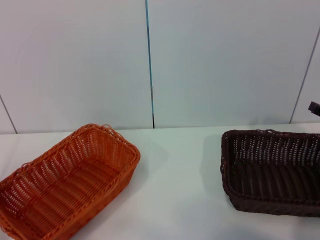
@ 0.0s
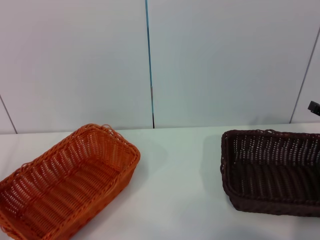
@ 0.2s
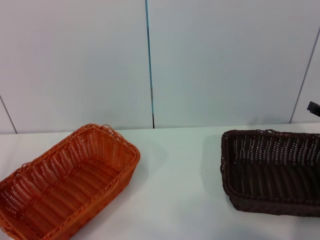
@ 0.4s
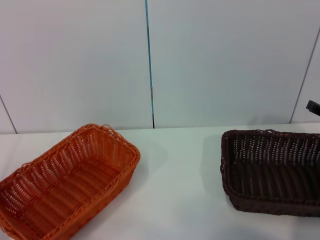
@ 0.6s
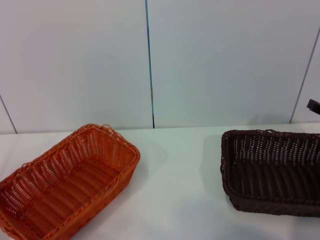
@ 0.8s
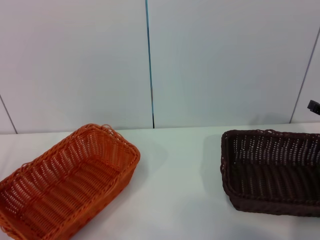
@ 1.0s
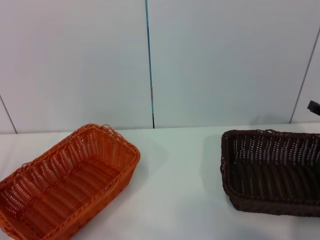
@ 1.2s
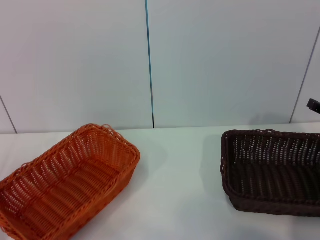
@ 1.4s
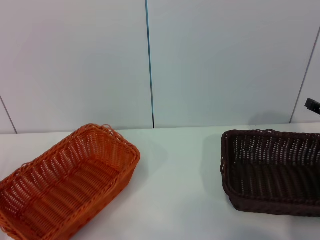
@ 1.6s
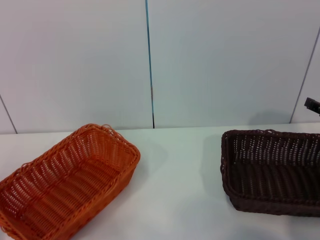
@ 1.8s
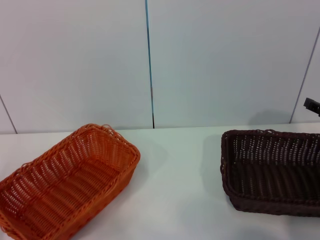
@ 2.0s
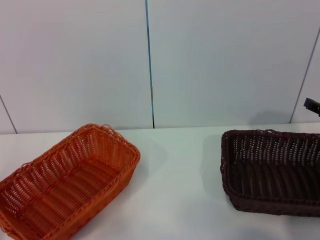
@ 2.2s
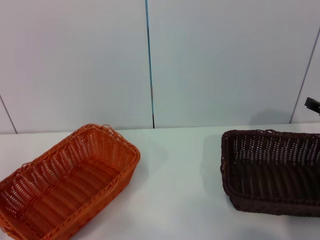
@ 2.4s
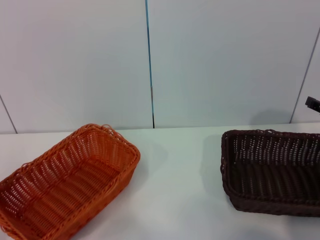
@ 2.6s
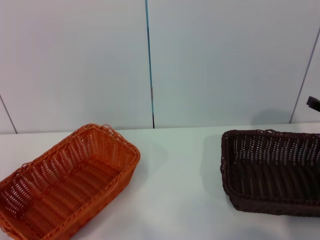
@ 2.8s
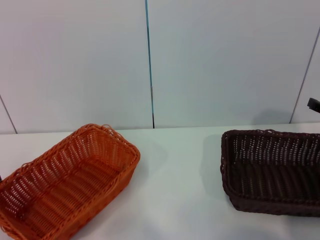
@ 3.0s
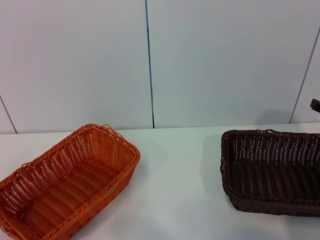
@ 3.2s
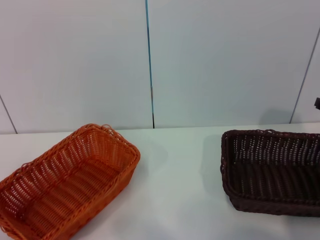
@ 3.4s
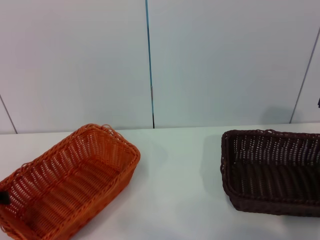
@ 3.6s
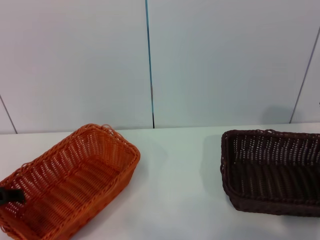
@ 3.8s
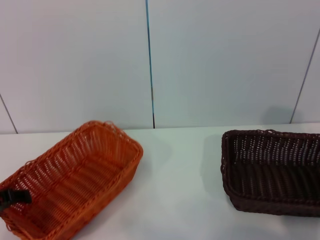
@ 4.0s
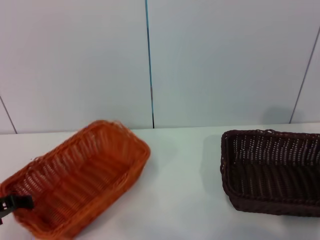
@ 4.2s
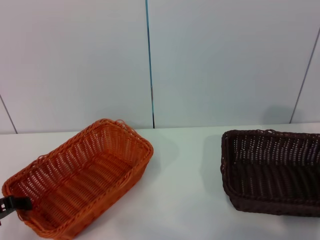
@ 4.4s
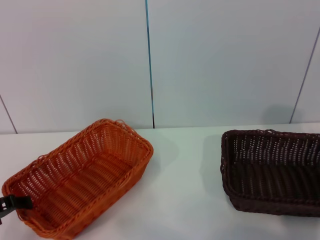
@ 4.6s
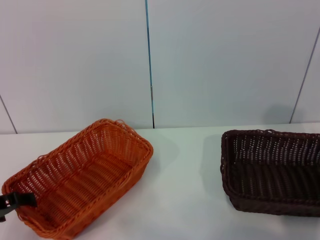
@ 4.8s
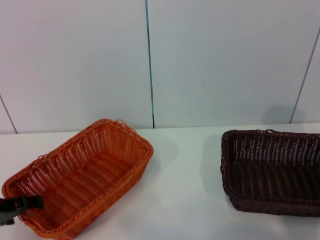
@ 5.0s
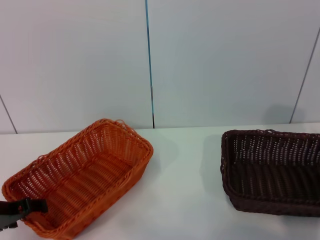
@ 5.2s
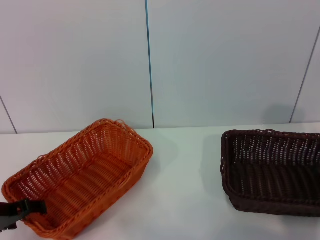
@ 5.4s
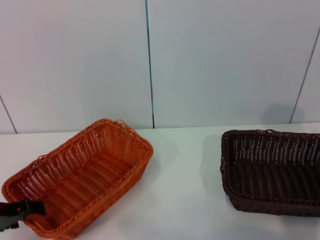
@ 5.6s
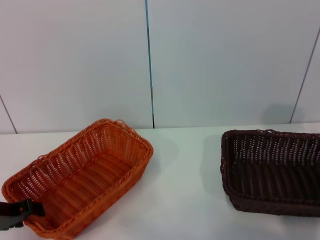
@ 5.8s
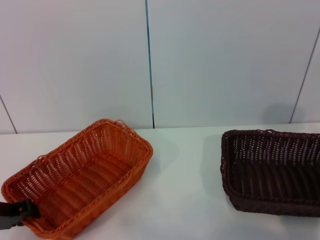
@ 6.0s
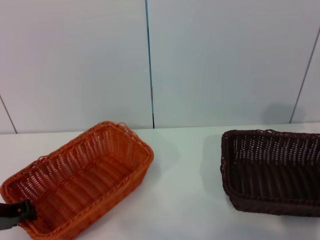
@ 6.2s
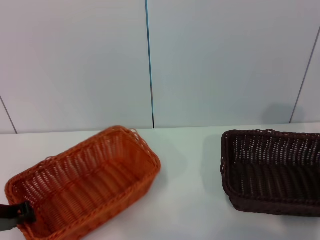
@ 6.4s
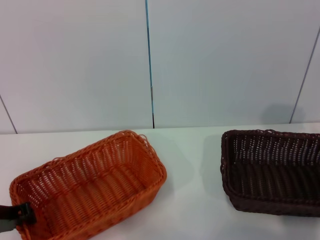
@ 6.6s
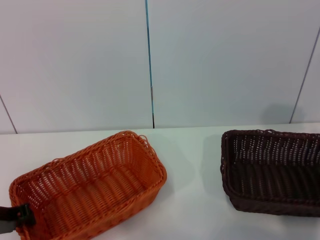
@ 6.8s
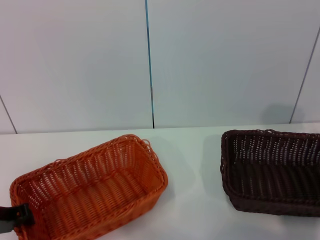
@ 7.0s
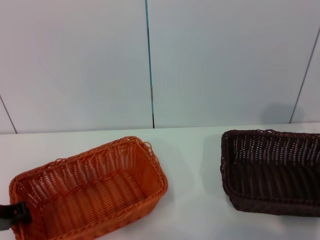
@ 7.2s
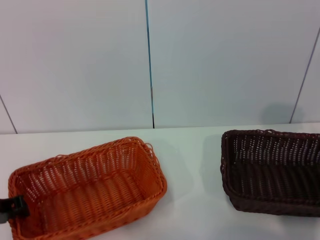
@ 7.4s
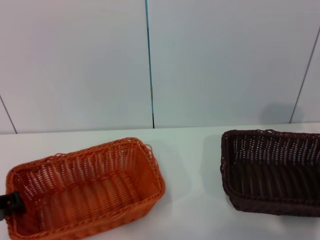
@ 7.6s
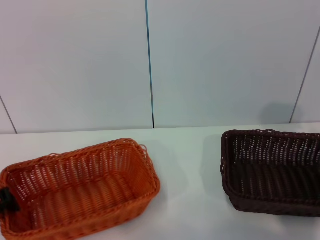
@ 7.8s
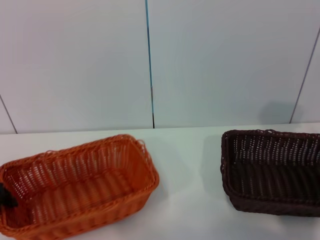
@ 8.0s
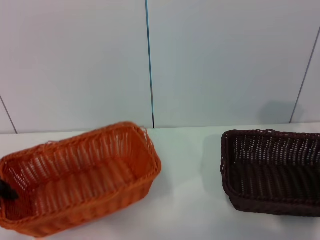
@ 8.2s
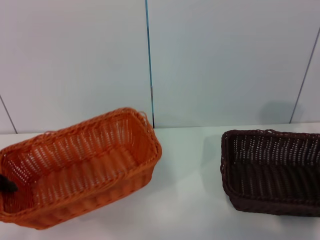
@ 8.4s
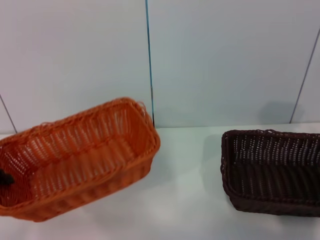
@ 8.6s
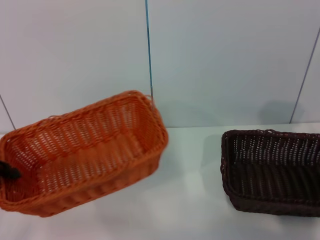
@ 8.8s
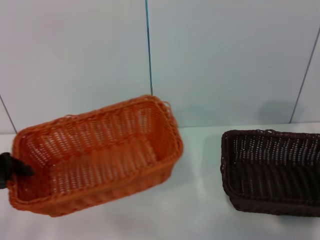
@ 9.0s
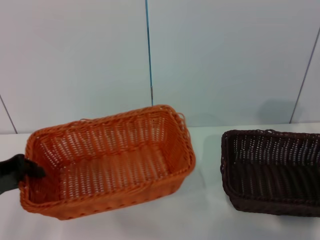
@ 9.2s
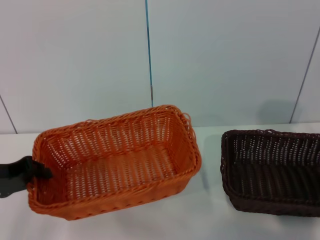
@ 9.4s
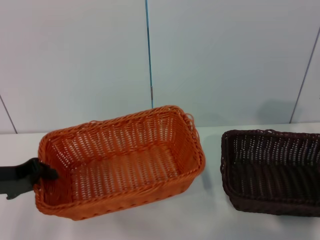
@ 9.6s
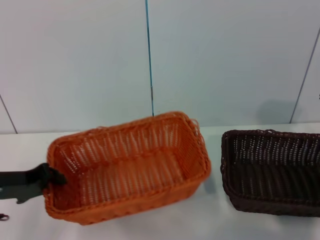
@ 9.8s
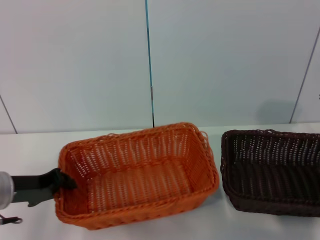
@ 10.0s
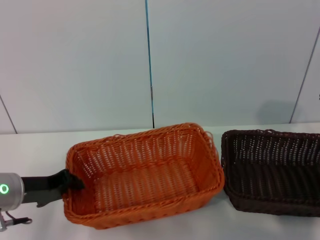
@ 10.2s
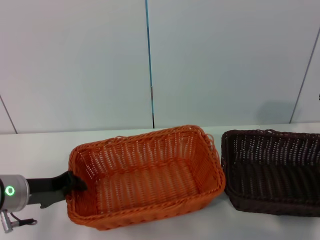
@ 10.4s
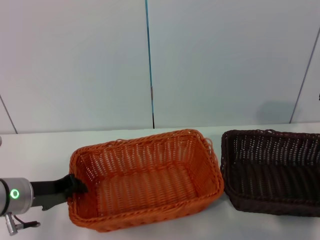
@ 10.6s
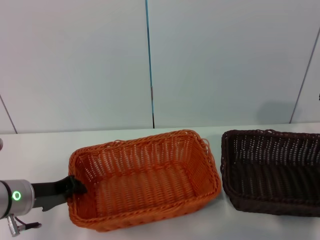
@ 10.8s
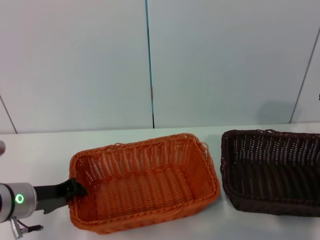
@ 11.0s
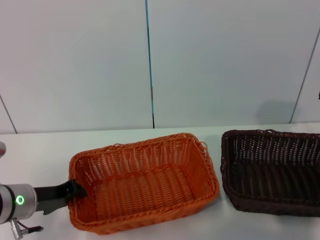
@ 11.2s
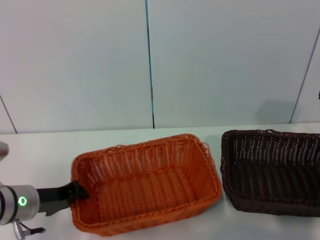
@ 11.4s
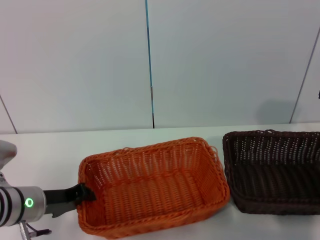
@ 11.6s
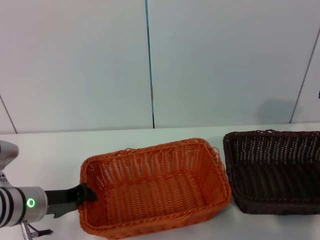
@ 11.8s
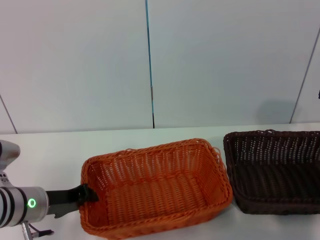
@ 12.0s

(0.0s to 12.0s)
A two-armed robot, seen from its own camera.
Step, 0.0s - 8.4s: Pick up the light basket with the left gripper.
3.0s - 4.4s: There are only small adjustments of the grippers.
4.4s - 6.0s: The left gripper closes up.
6.0s - 7.6s: The left gripper closes its fingers.
7.6s - 9.0s: The left gripper shifts about 5 cm upward.
9.0s - 10.4s: The left gripper moves to the right and downward, about 10 cm.
10.4s - 12.0s: The grippers make only small movements.

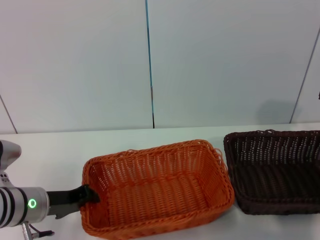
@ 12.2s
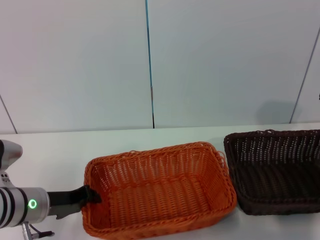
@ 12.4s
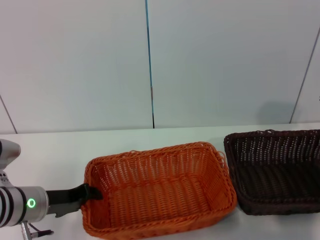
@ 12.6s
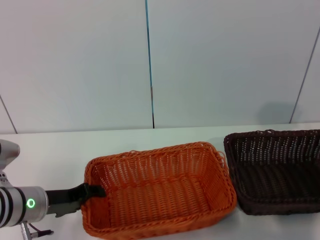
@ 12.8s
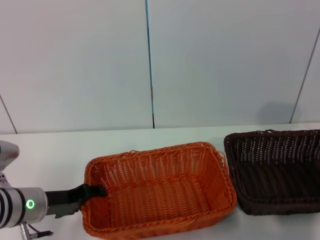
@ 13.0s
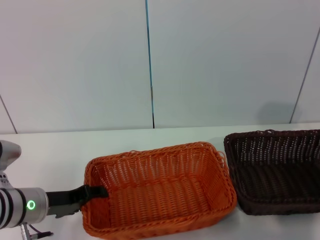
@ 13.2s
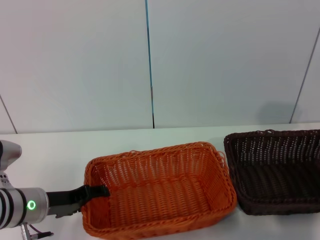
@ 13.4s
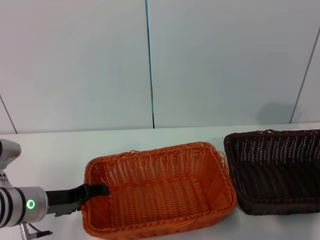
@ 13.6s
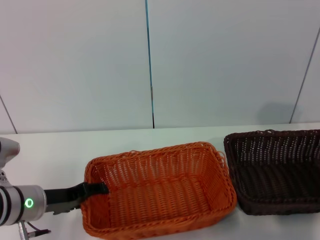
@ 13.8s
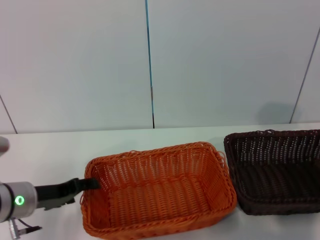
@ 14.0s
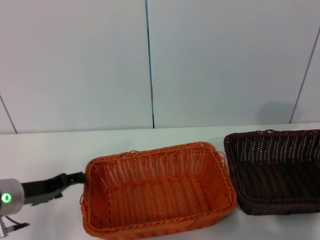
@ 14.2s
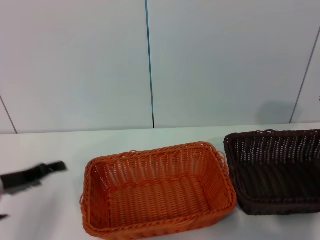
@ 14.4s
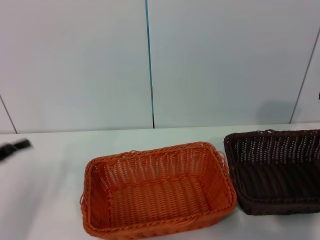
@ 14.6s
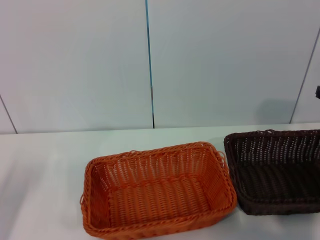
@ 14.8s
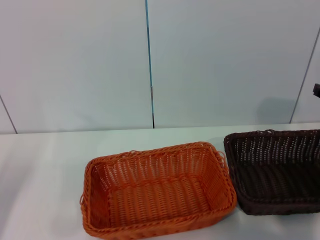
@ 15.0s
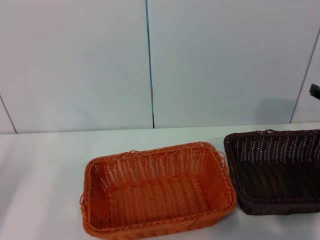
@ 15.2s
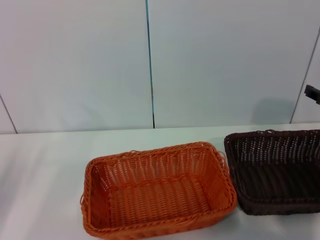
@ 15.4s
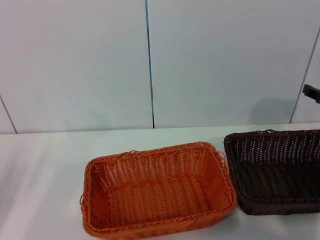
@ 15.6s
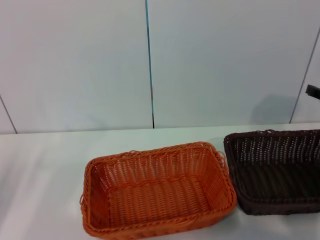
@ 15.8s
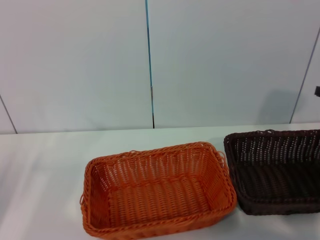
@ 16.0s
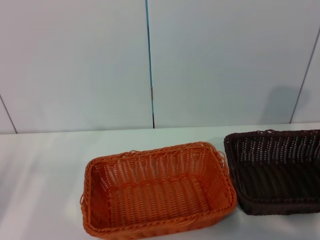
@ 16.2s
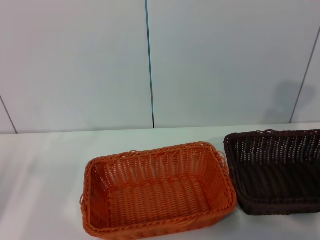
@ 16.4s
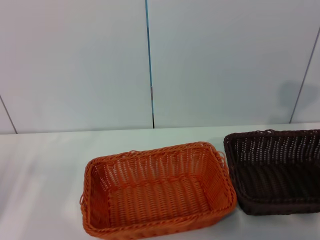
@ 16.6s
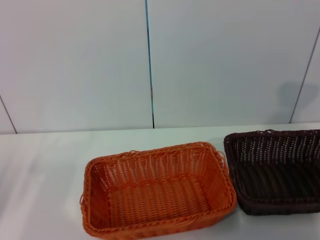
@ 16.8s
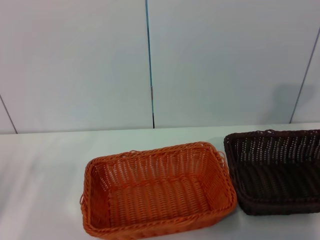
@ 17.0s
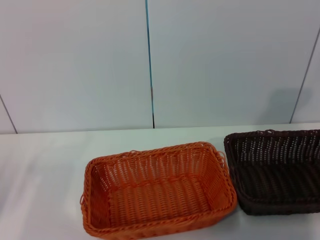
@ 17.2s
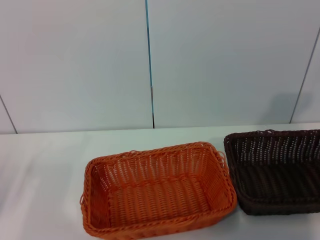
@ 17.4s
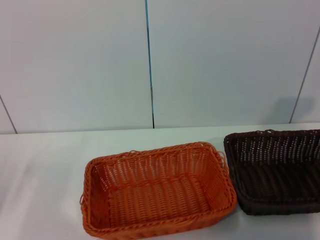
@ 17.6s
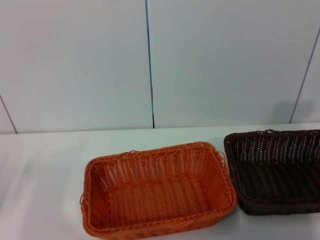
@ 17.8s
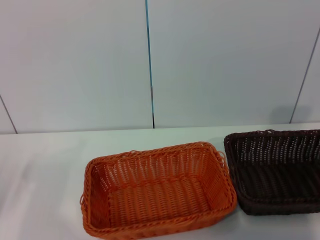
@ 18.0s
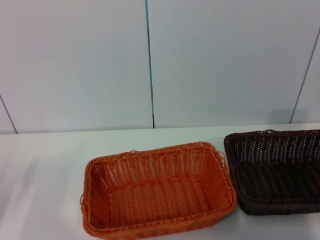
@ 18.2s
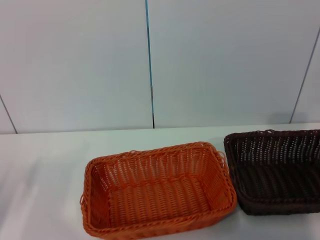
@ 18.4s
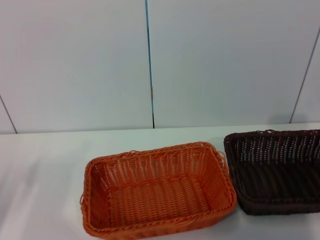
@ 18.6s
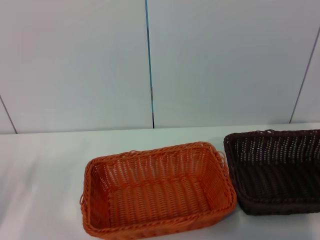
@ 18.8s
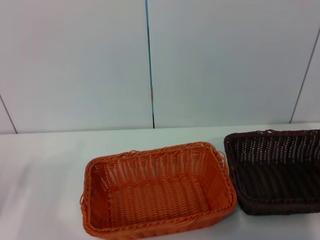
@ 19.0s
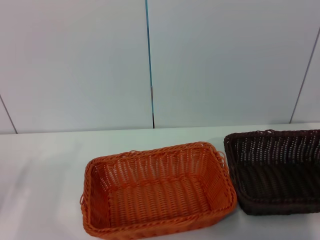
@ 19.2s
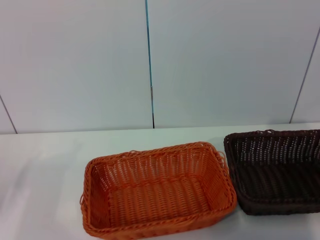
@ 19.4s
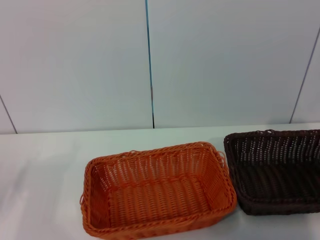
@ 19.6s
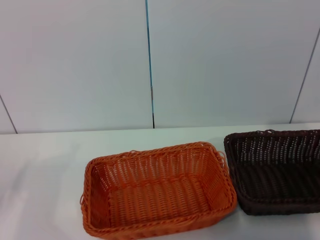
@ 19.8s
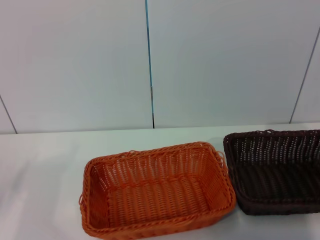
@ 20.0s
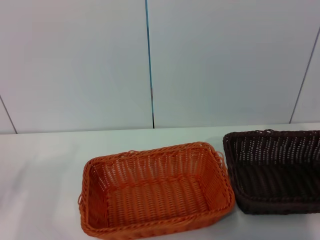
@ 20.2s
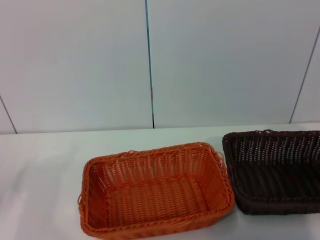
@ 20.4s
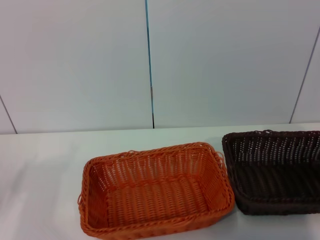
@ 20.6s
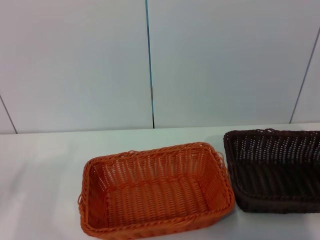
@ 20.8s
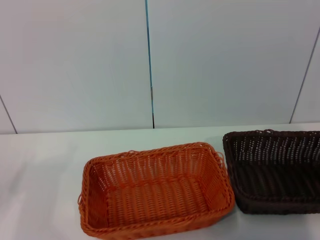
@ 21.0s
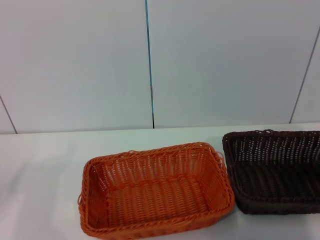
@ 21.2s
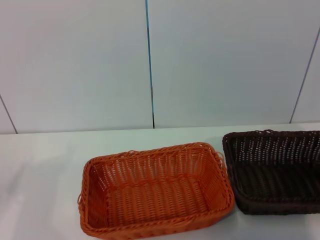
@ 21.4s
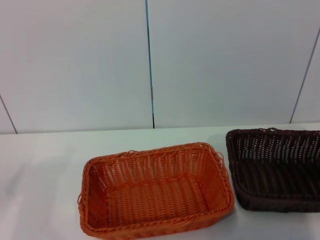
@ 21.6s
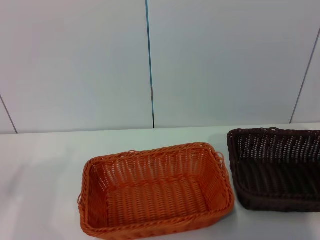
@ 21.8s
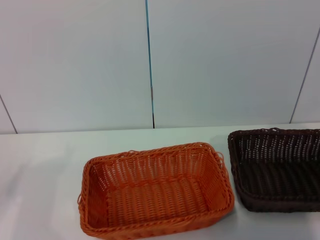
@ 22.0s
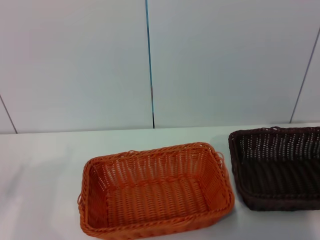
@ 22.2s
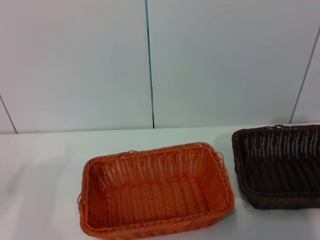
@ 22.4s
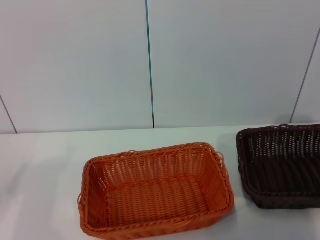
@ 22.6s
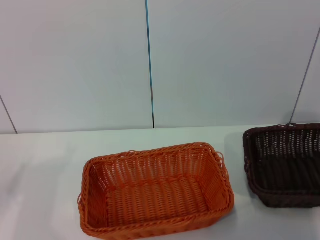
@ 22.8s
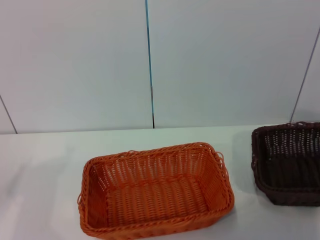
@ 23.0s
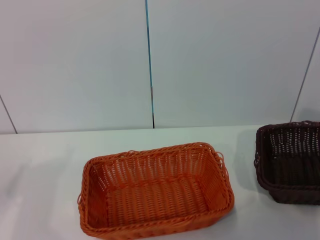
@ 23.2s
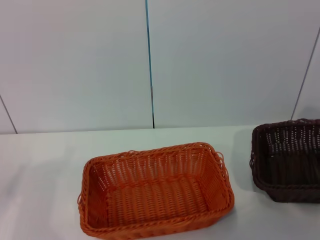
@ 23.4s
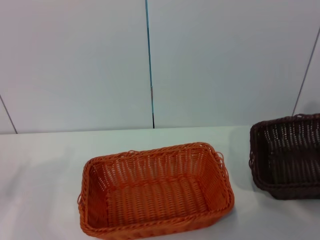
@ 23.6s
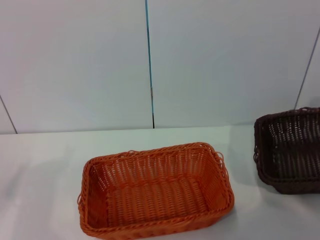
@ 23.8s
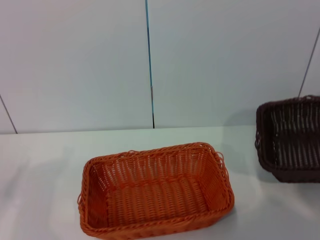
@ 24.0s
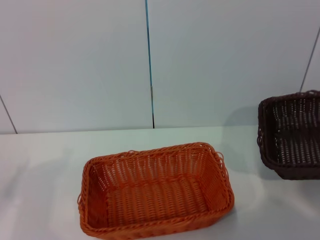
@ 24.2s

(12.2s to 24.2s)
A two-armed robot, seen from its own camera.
Step, 12.2s - 14.2s: Place the light basket in the center of view with the left gripper.
Step, 14.4s - 24.2s: Pick up the dark basket with the right gripper.
12.2s - 13.8s: The left gripper opens.
13.8s - 15.2s: The left gripper goes some 15 cm to the left and upward.
19.8s - 22.6s: The grippers make only small movements.
22.6s - 24.2s: The right gripper shifts some 10 cm upward and to the right.
